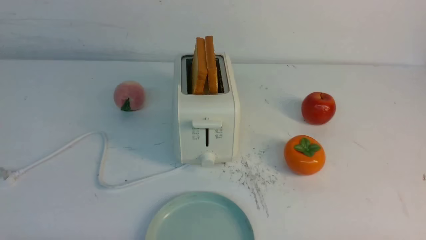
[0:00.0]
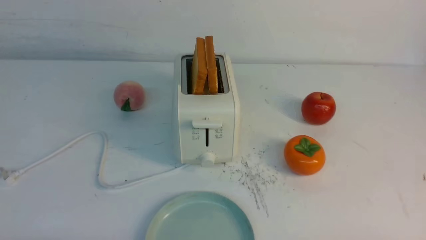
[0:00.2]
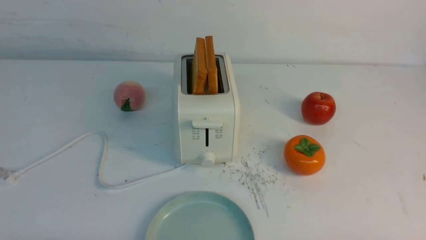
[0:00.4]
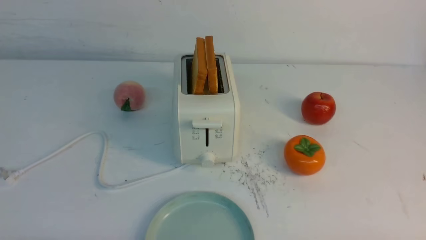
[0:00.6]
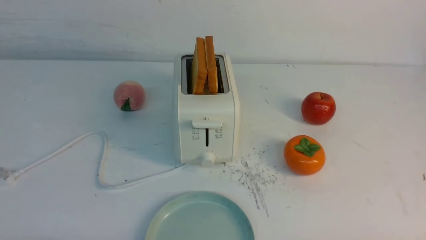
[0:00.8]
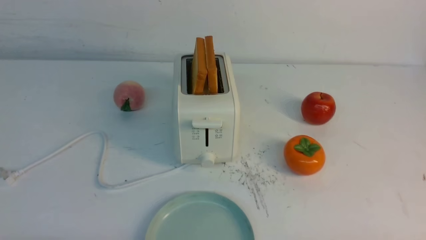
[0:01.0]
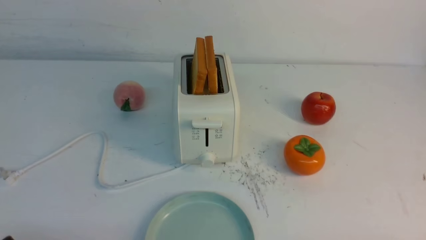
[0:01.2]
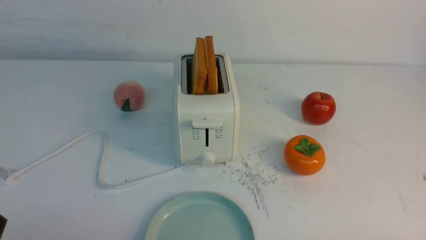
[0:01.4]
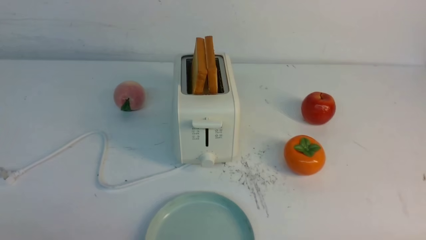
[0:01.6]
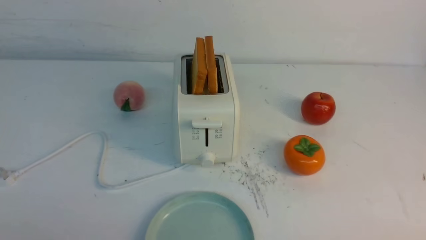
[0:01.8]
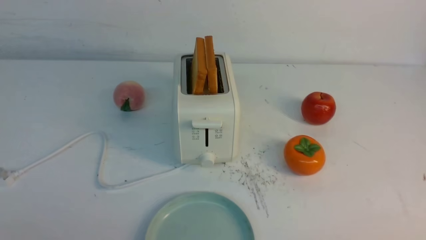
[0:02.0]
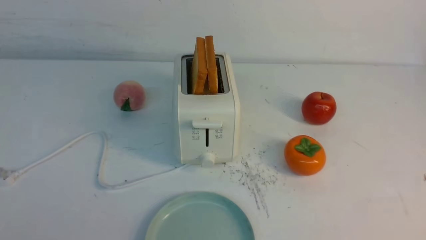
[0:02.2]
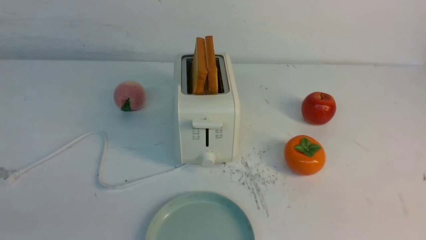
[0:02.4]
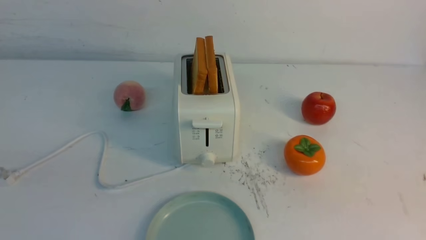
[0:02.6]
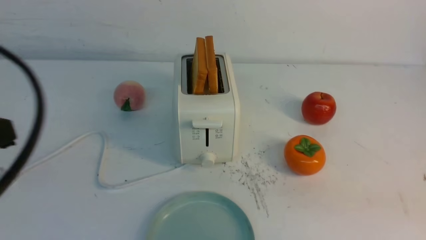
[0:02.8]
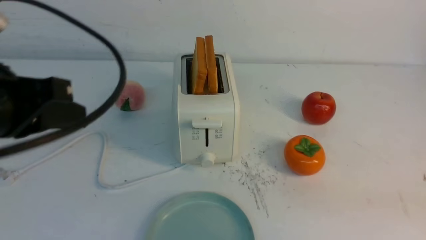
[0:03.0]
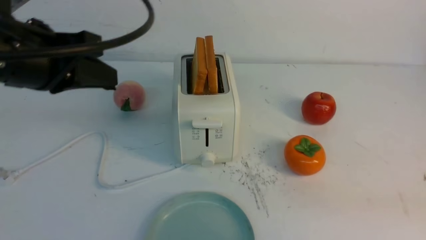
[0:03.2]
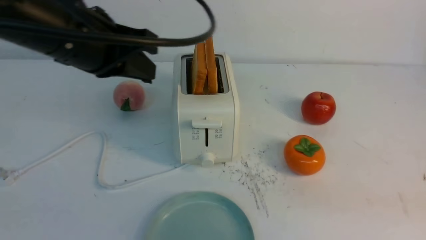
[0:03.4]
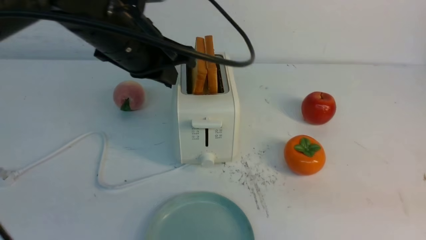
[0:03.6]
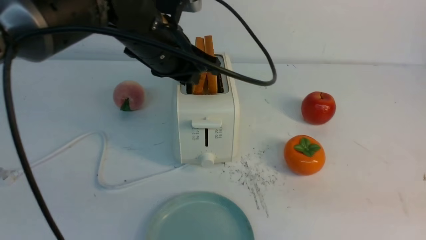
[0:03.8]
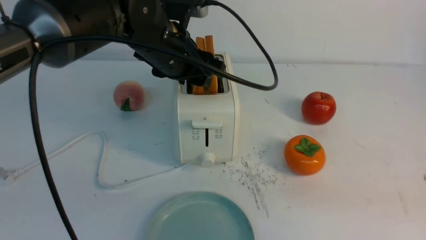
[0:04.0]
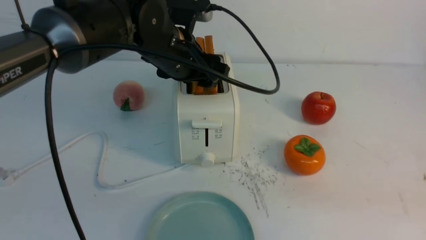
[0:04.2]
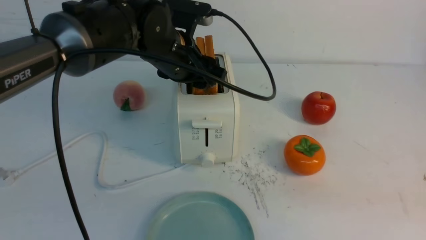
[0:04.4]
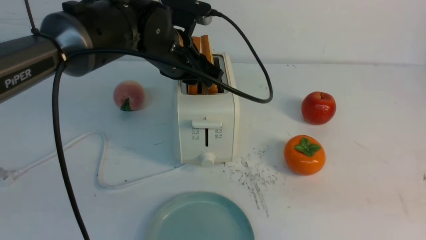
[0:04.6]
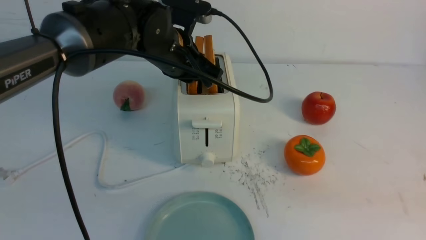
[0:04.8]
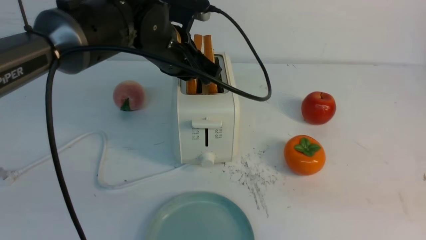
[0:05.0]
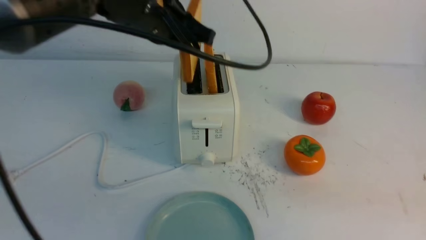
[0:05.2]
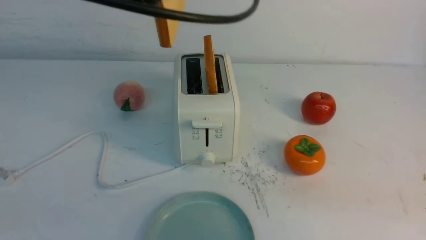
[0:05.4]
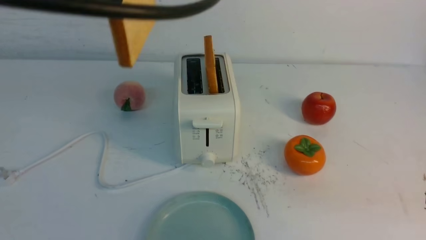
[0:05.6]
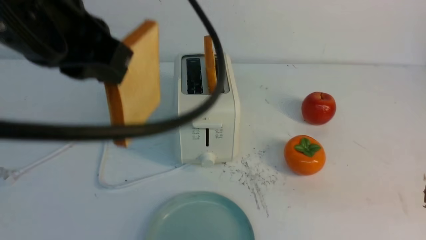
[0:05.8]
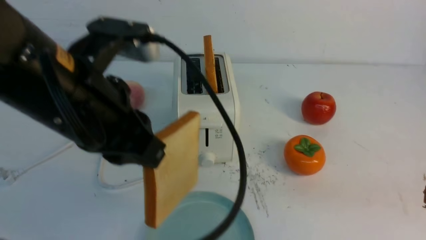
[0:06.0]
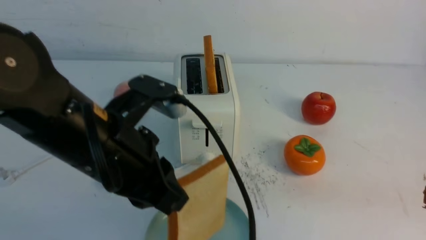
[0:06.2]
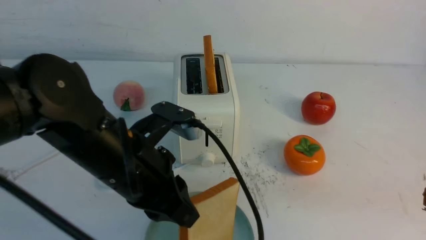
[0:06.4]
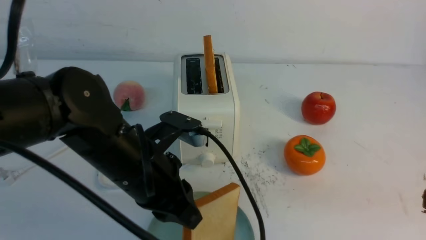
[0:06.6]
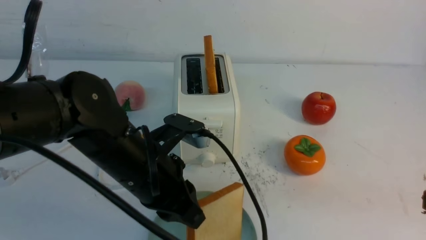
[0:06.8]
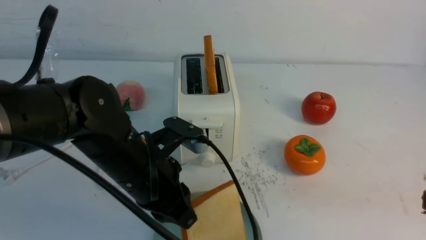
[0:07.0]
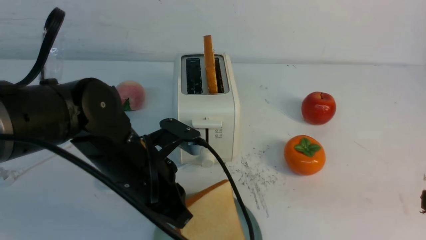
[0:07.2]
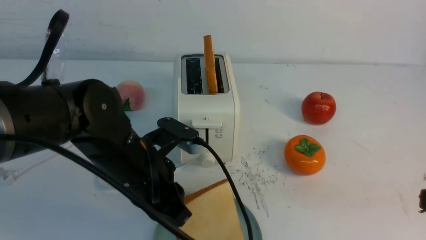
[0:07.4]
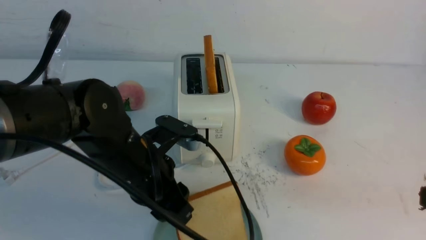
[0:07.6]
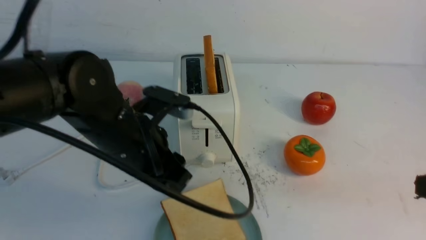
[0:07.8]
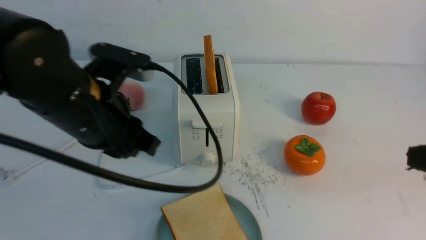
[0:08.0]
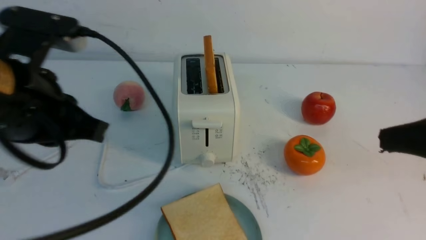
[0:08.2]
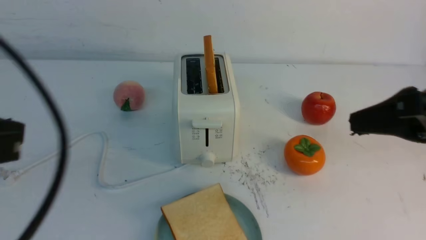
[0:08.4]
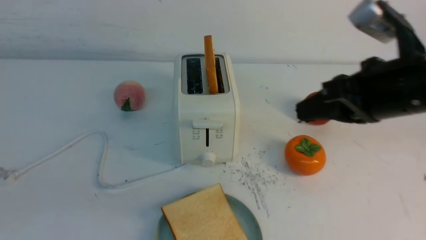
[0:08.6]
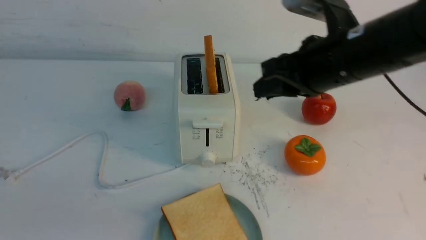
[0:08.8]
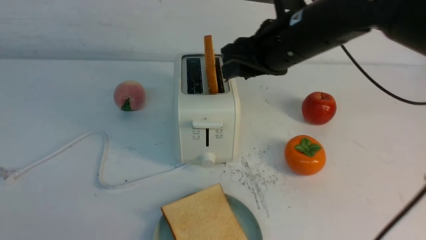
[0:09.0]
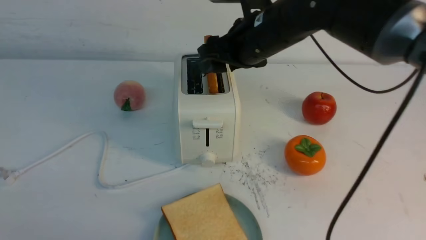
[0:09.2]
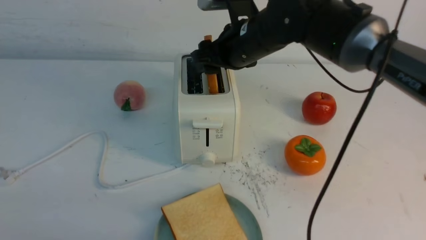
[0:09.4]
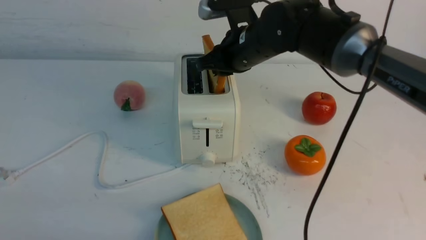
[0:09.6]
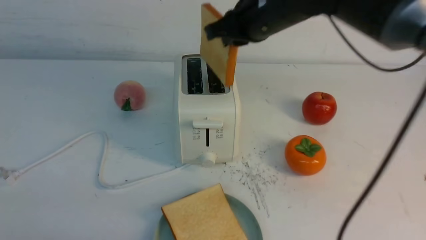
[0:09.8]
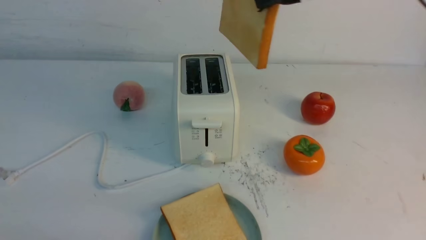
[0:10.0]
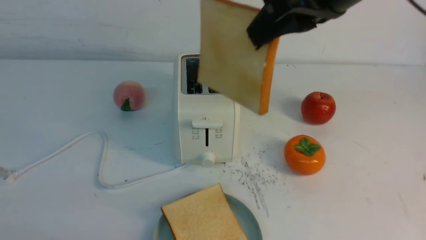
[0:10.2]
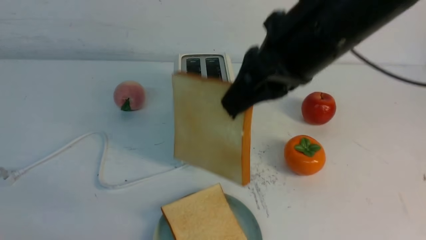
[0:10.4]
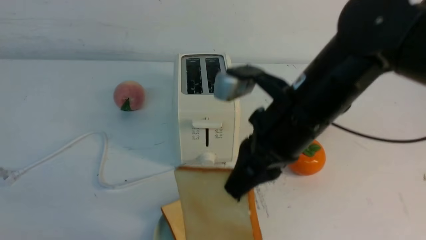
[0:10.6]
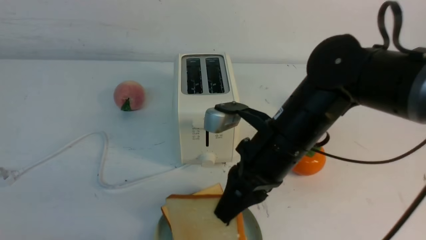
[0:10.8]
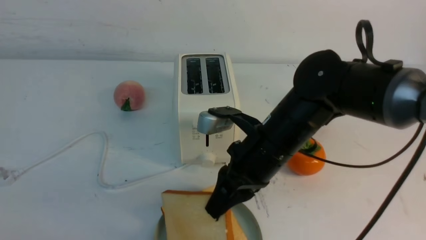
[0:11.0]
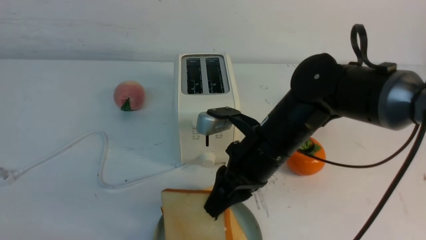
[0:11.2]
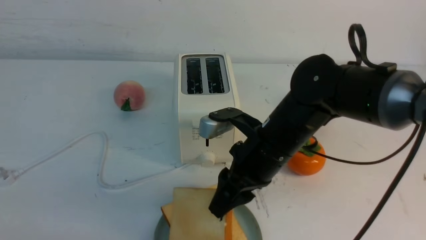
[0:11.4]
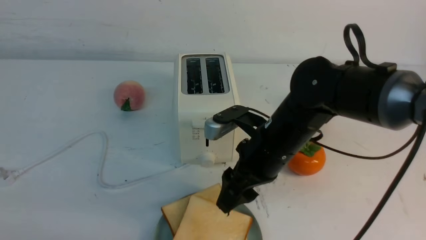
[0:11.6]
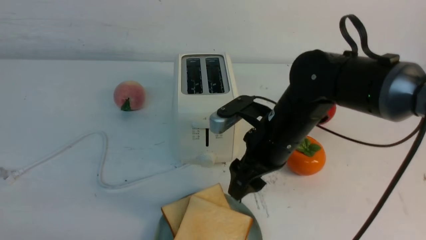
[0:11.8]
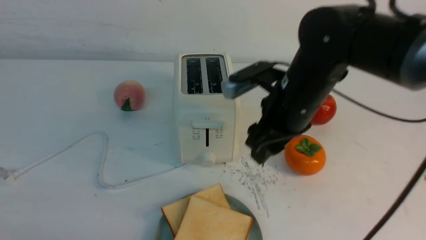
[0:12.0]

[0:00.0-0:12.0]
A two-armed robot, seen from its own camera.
Task of the whole recording: take toasted bread from bread machine on white table place on plate.
Step, 0:00.0 to 0:05.2: use the left arm to take out a slice of bread.
Step, 0:05.4 to 0:07.8: use the left arm to put a slice of bread into the empty plate.
Step, 0:08.0 to 0:09.8: use the right arm to take out a slice of bread.
Step, 0:10.0 to 0:12.0: use the right arm to put a slice of bread into the plate.
0:01.6 to 0:03.0: The left gripper heads upward and forward, covering approximately 20 cm, and closes.
0:03.0 to 0:04.4: The left gripper goes about 25 cm forward and to the right, and opens up.
0:04.4 to 0:06.0: The left gripper is displaced backward and upward by roughly 20 cm, and closes up.
0:06.0 to 0:07.6: The left gripper goes approximately 15 cm downward, and opens up.
0:07.6 to 0:09.0: The right gripper shifts approximately 25 cm forward and to the left, and opens up. The left gripper heads backward, to the left and upward, covering roughly 30 cm, and closes.
0:09.0 to 0:10.4: The right gripper heads backward and upward, covering about 10 cm, and closes up.
0:10.4 to 0:12.0: The right gripper shifts about 15 cm downward, and opens up.

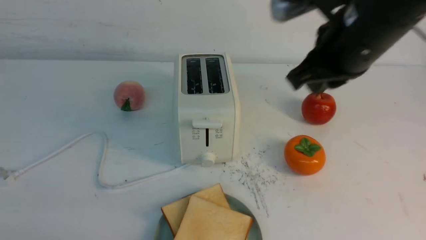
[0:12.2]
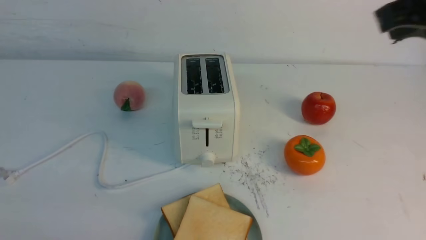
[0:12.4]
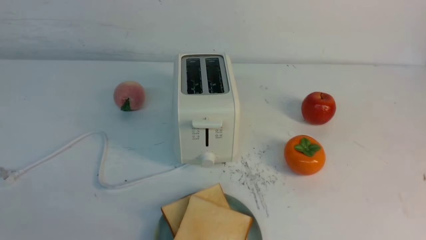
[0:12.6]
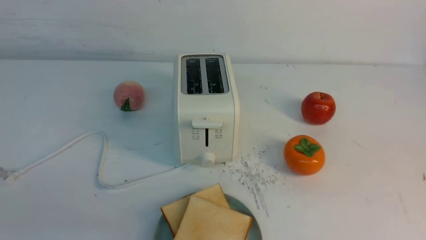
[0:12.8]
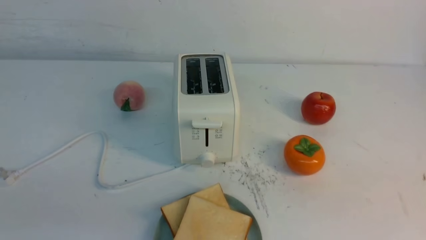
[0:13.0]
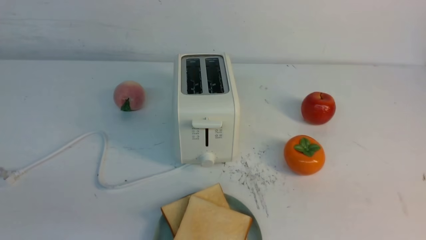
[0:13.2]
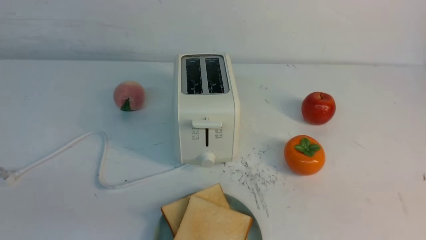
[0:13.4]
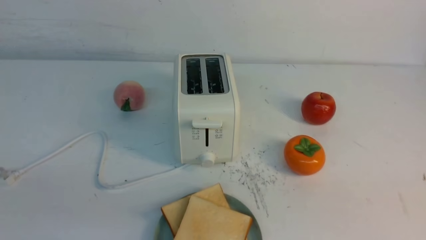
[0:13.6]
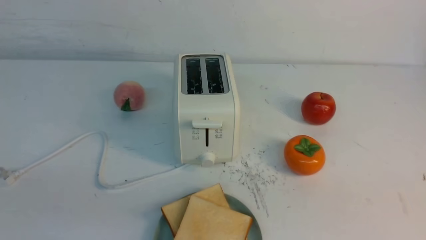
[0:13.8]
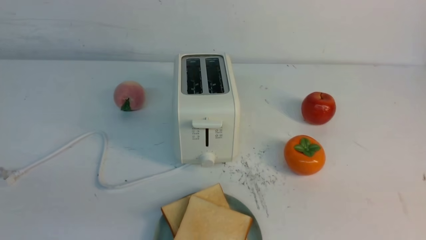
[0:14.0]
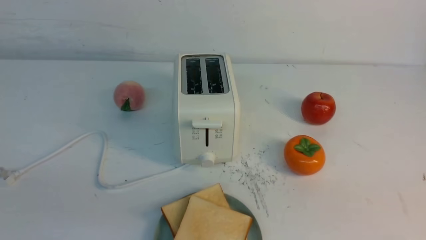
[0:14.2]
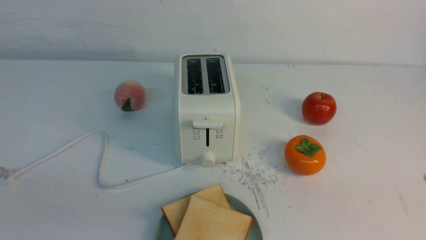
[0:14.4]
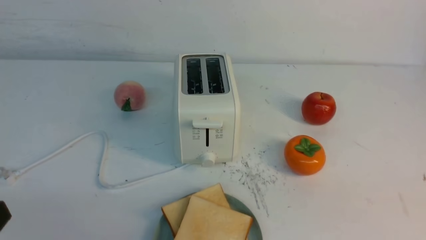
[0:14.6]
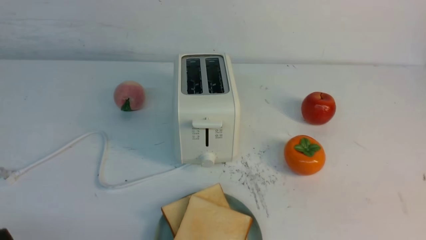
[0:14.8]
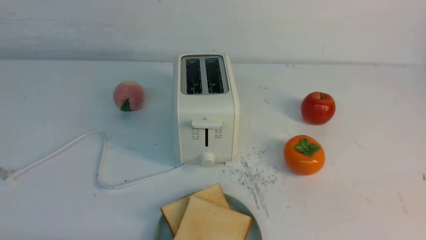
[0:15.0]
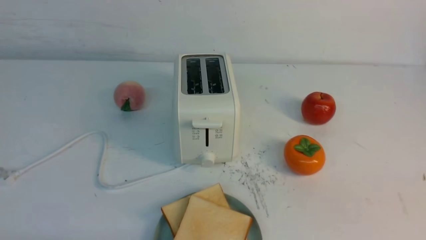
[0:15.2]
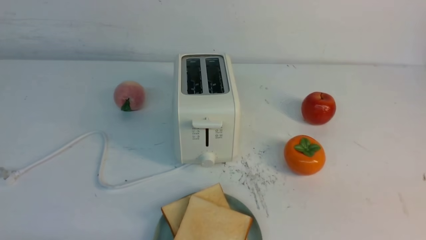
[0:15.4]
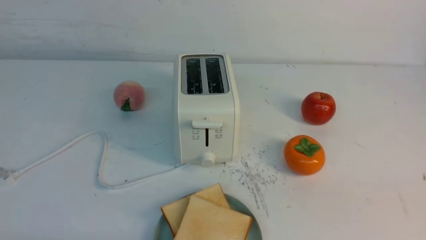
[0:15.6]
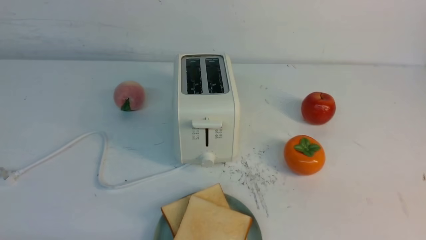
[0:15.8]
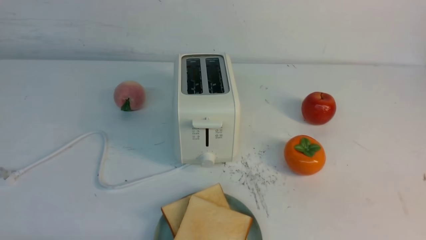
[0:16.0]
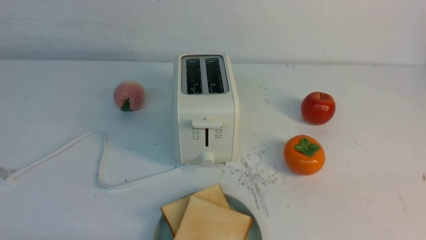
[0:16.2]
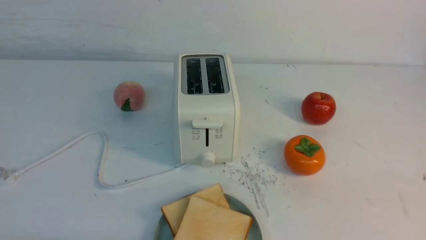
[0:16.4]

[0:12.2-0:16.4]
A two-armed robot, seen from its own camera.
Task of the whole recording: take toasted bread from bread machine on white table place on plate.
0:12.2 to 0:13.6: The right gripper shifts some 30 cm backward and to the right, and closes up.
